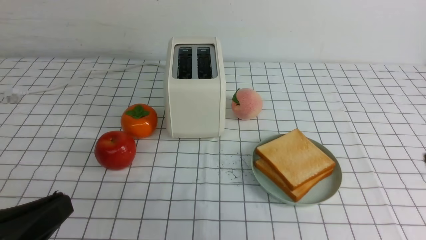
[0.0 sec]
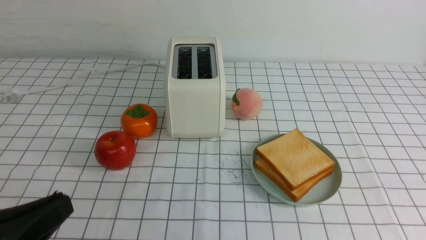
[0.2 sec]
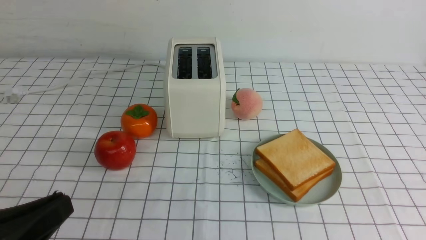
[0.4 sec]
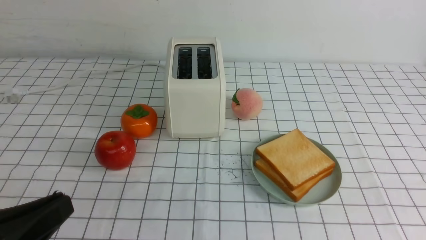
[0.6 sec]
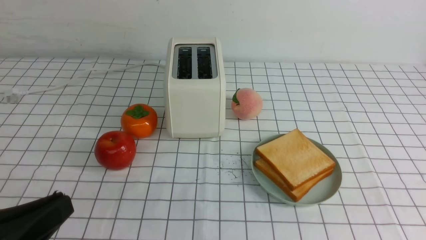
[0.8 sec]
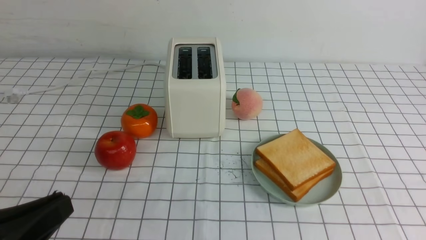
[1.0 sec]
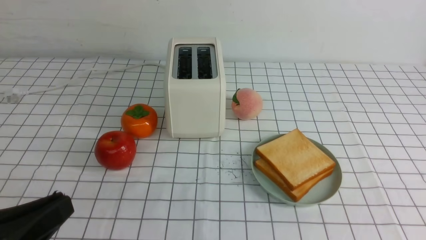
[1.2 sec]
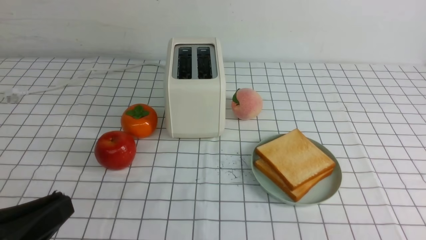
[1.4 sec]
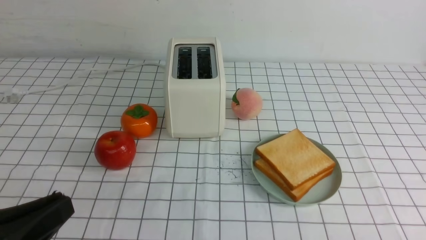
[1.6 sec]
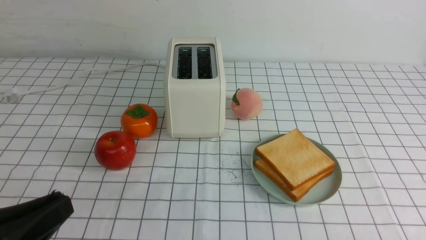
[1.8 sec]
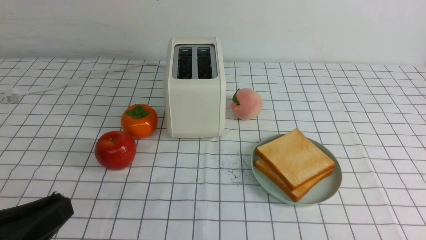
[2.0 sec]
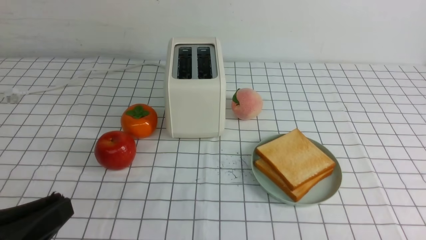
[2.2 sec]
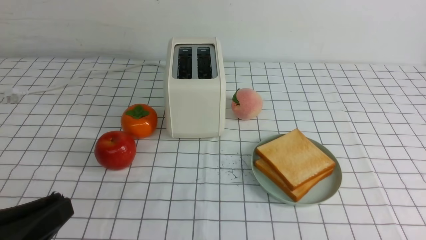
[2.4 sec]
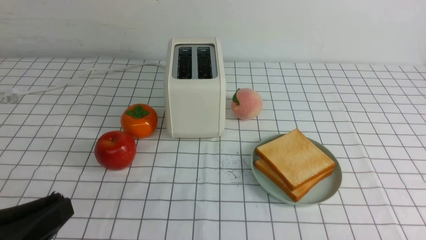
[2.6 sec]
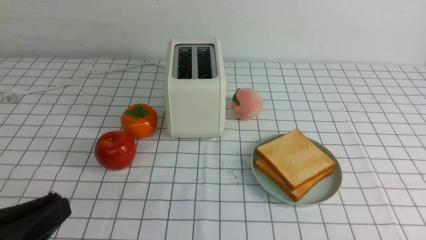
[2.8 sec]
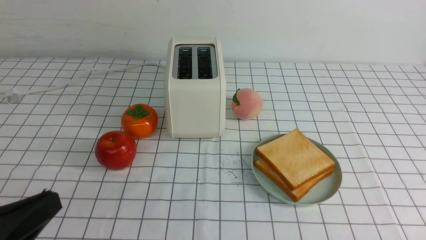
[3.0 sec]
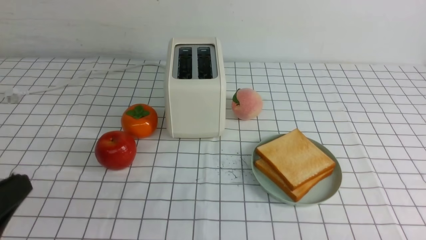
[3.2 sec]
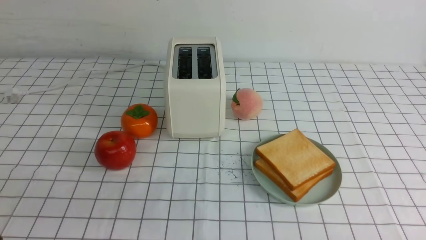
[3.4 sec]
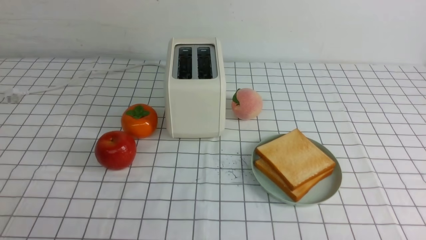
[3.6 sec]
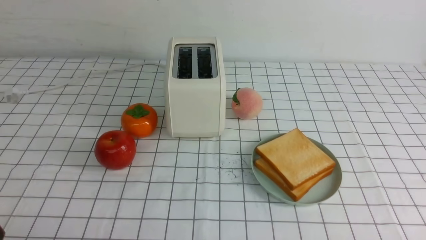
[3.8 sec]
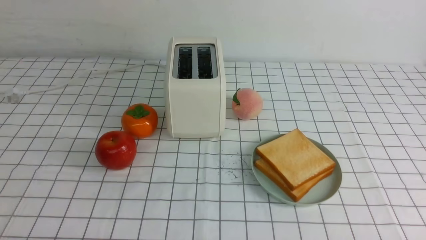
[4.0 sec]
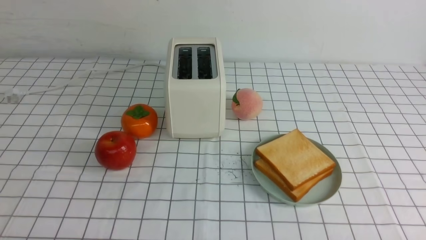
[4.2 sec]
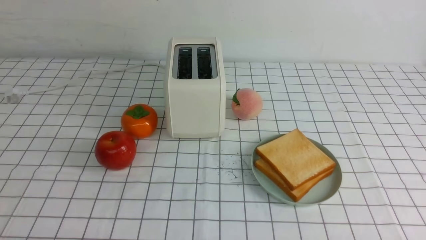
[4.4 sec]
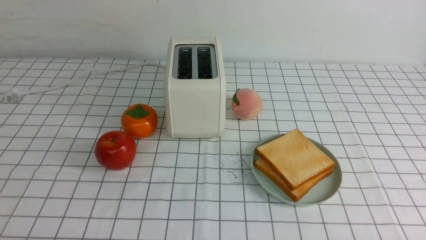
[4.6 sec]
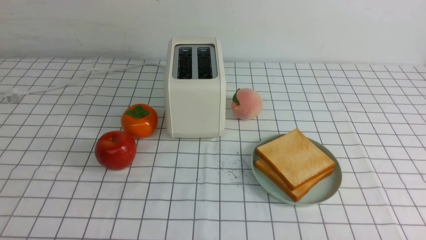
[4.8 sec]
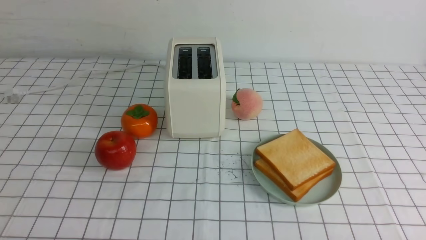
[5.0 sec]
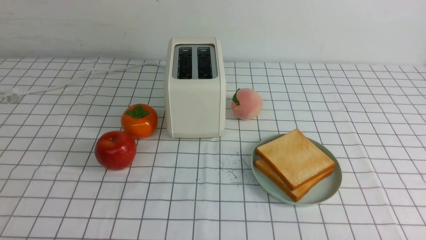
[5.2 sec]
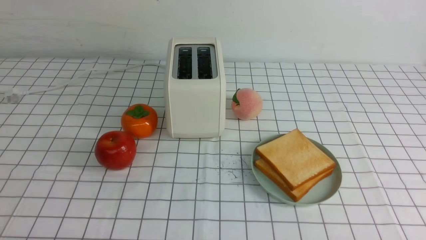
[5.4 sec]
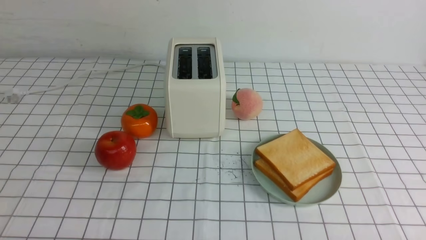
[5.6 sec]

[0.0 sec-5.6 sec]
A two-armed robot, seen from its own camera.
Task of the whole recording: take toasted bread from bread machine on white checkered table place on plate.
2.8 sec to 4.2 sec: The left gripper travels downward by some 10 cm.
4.2 sec to 5.6 sec: Neither gripper changes place.
